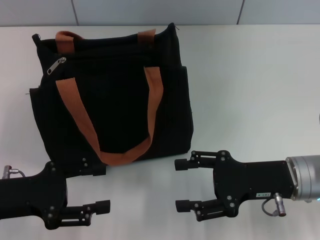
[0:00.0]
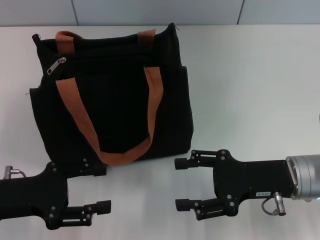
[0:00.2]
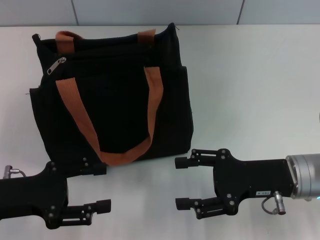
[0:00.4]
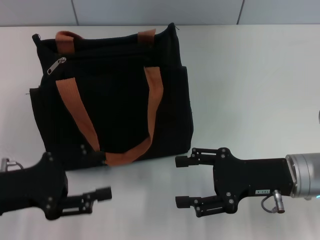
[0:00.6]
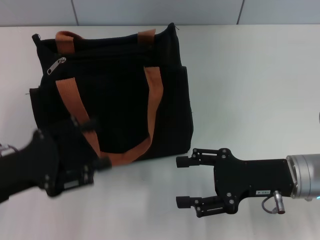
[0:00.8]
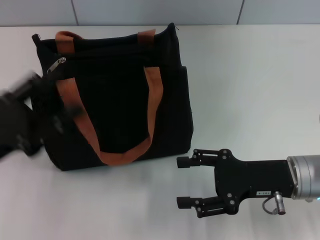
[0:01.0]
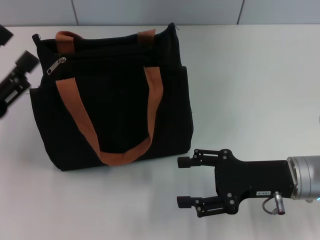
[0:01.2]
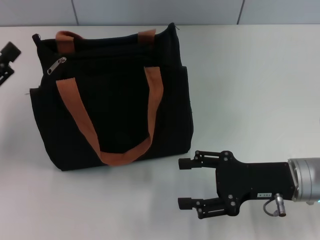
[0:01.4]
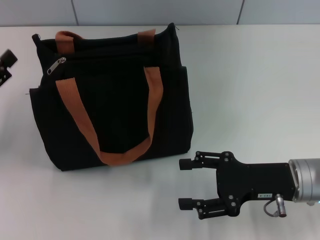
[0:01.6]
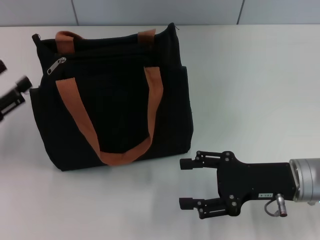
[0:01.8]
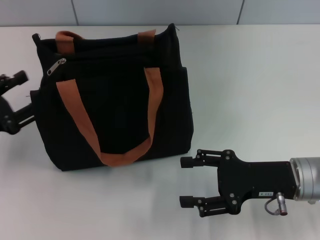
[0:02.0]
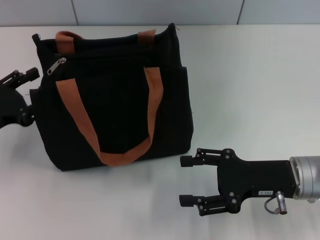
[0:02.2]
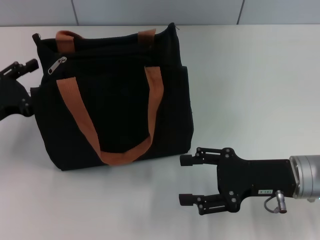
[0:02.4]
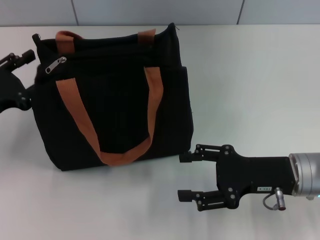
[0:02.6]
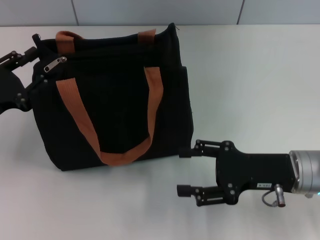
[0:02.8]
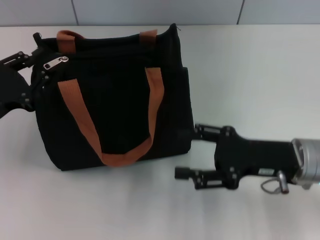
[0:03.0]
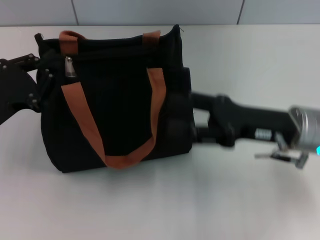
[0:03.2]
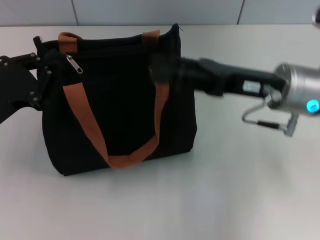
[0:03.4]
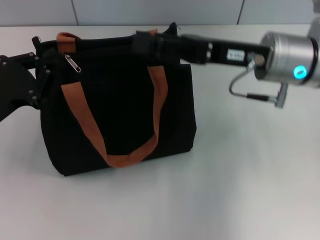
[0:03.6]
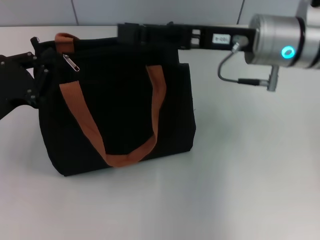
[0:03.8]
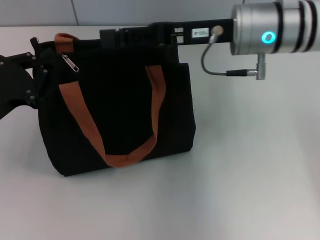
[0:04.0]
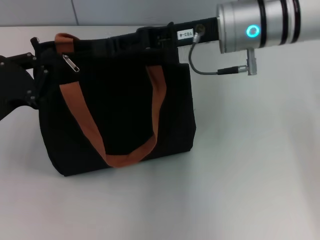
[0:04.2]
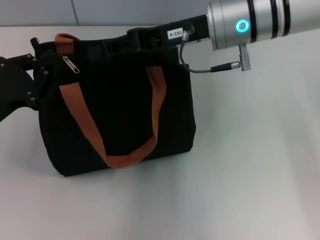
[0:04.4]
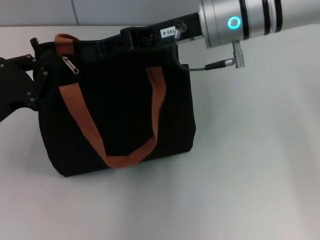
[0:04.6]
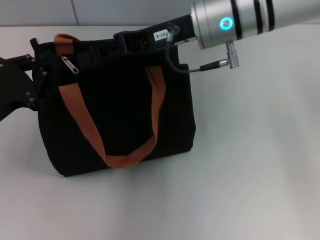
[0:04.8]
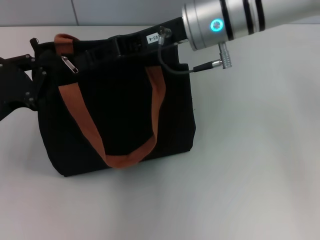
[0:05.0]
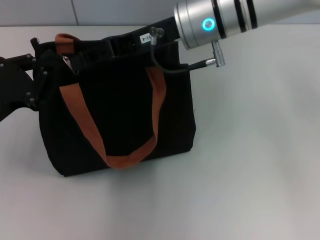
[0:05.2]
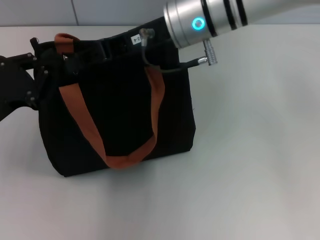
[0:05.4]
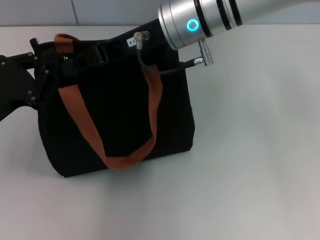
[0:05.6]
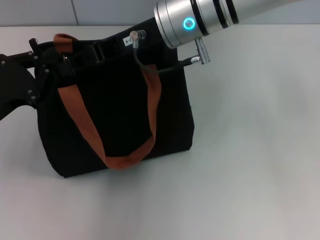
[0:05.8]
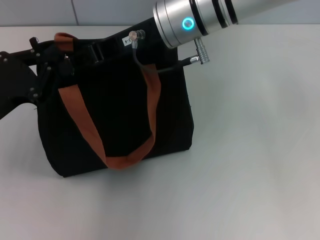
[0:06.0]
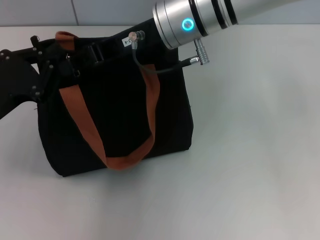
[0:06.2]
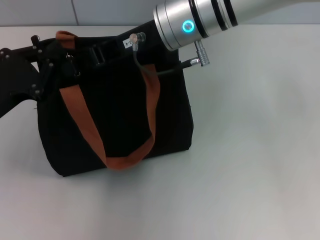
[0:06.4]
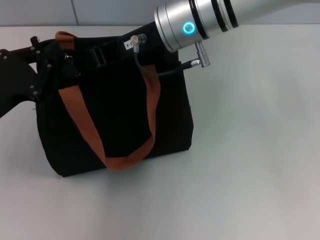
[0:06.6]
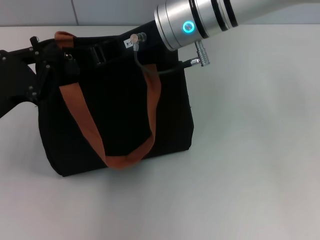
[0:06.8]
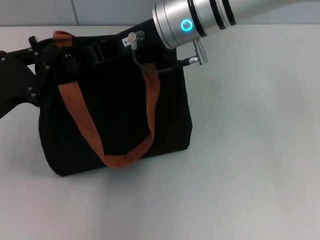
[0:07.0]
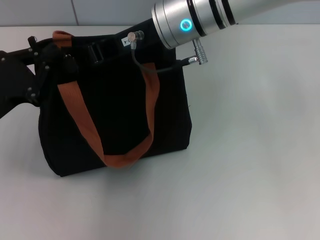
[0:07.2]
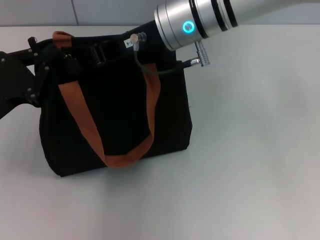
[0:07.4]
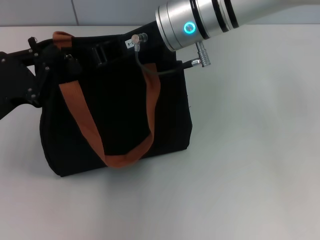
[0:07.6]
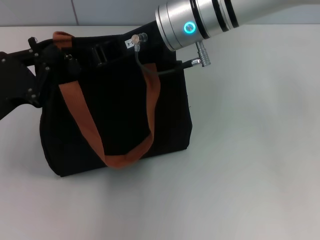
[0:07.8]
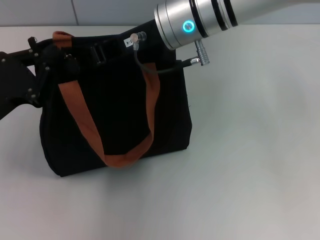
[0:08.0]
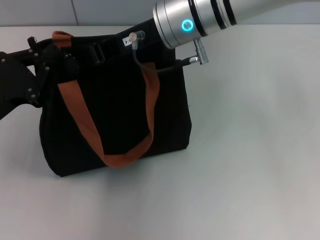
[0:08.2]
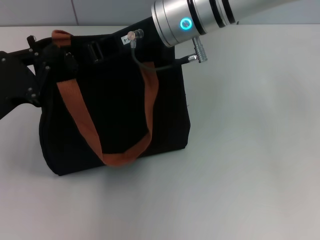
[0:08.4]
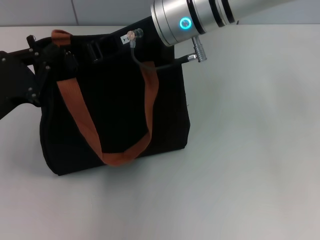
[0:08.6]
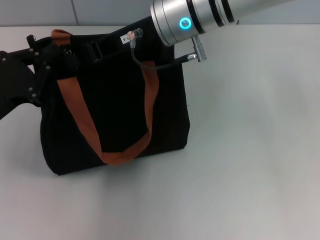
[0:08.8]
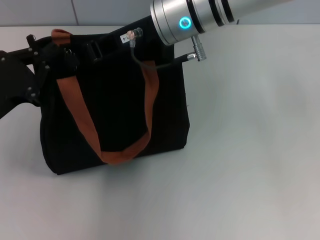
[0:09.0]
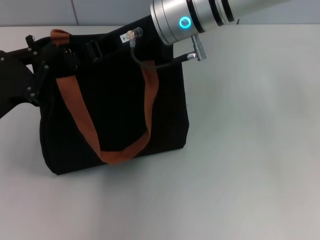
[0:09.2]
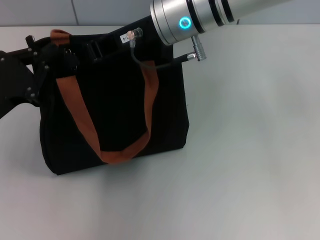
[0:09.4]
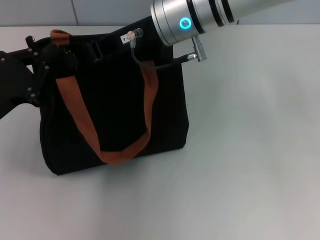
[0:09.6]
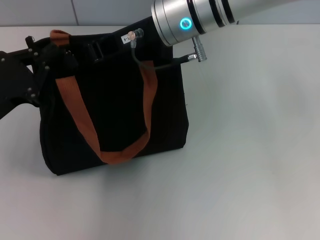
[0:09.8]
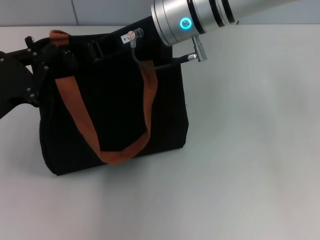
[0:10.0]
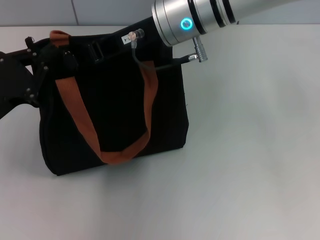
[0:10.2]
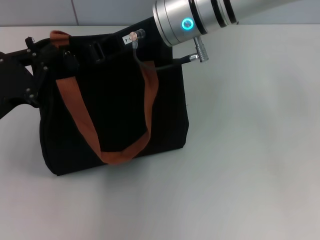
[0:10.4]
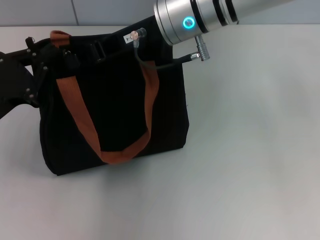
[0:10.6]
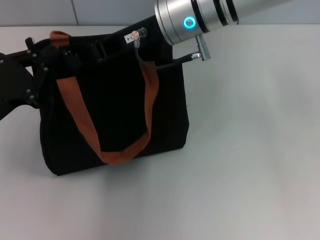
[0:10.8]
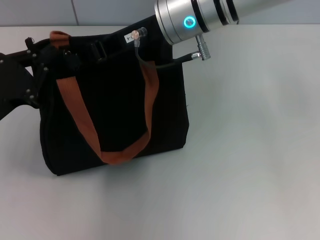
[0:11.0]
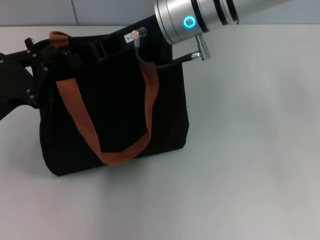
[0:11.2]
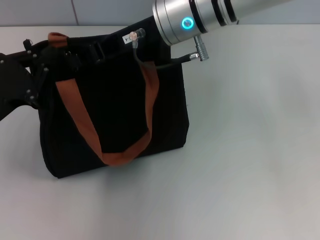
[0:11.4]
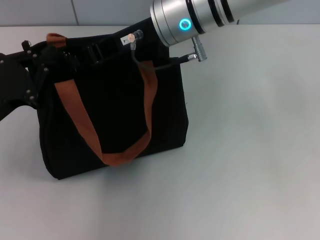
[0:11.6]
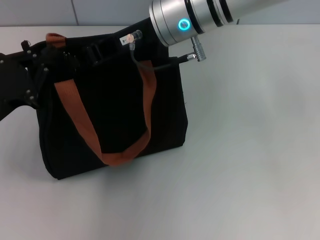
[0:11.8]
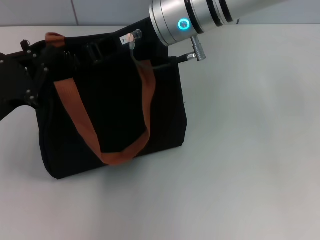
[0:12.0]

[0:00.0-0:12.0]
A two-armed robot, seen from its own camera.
0:00.0 to 0:01.6: The left gripper goes some 5 cm to the left.
0:01.6 to 0:03.0: The left gripper closes its fingers.
0:03.0 to 0:04.4: The left gripper closes its fingers; the right gripper heads forward, upward and to the left, covering about 20 cm.
0:04.4 to 0:06.0: The right gripper moves to the left, some 5 cm.
0:06.0 to 0:10.4: Neither gripper changes place.
0:10.4 to 0:12.0: The two grippers keep their place.

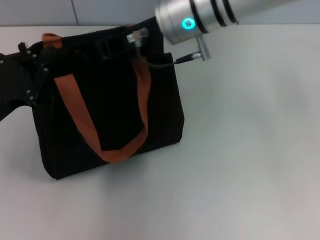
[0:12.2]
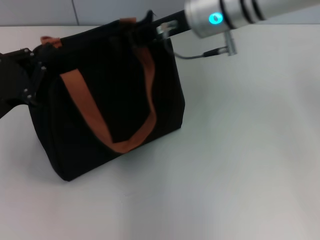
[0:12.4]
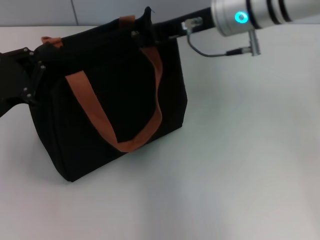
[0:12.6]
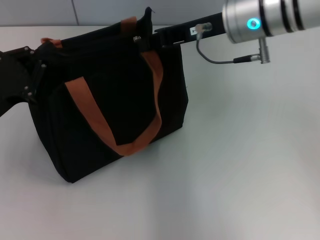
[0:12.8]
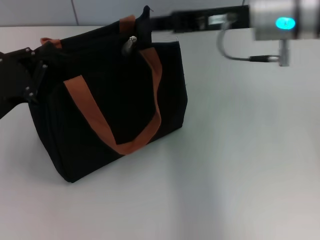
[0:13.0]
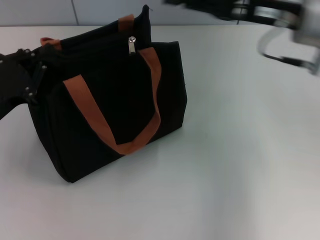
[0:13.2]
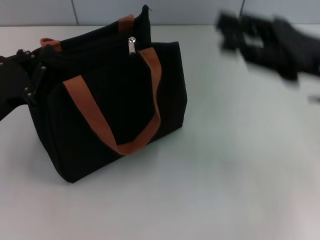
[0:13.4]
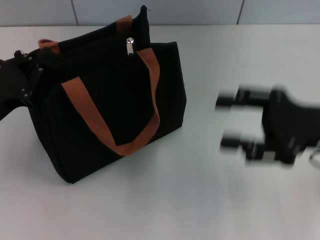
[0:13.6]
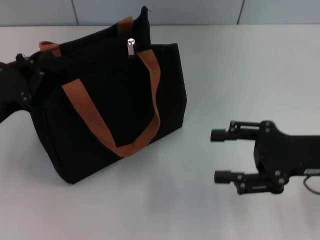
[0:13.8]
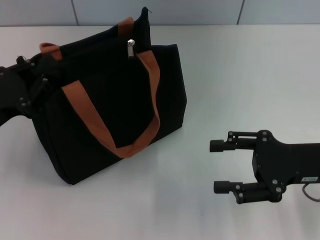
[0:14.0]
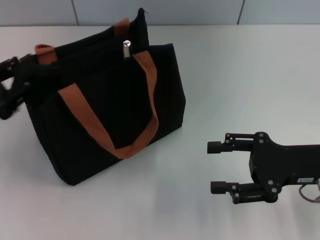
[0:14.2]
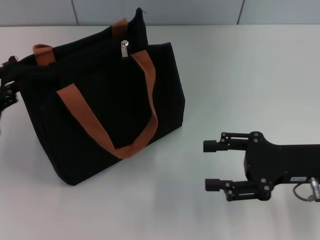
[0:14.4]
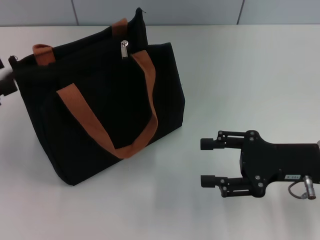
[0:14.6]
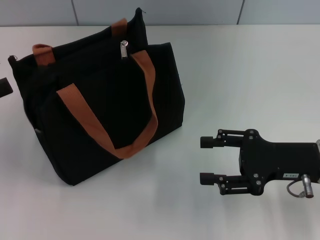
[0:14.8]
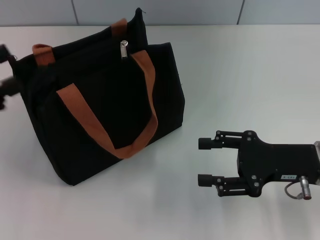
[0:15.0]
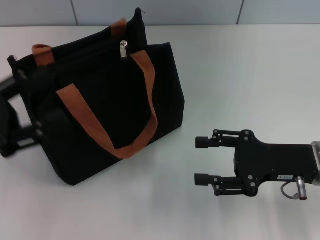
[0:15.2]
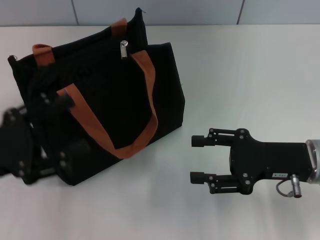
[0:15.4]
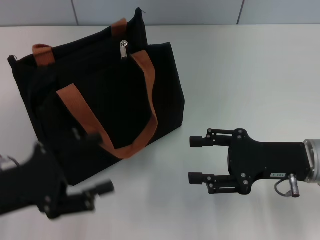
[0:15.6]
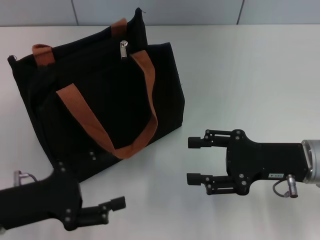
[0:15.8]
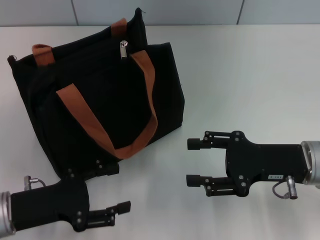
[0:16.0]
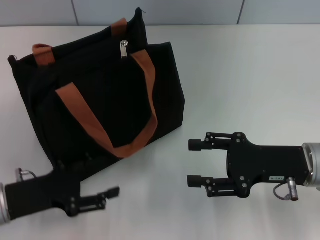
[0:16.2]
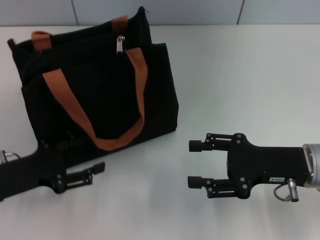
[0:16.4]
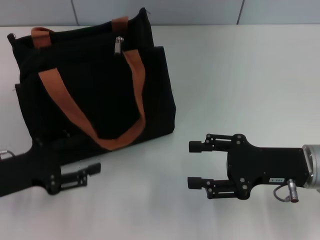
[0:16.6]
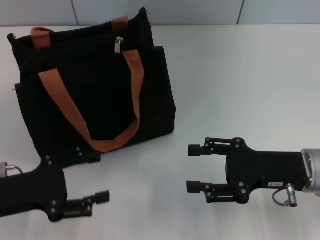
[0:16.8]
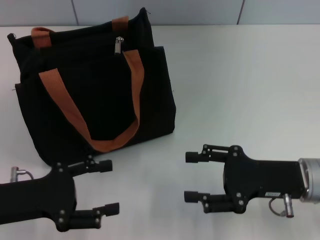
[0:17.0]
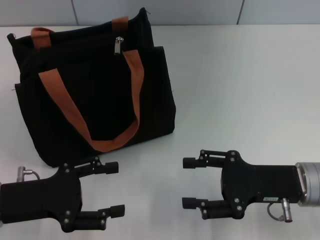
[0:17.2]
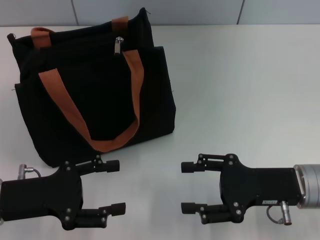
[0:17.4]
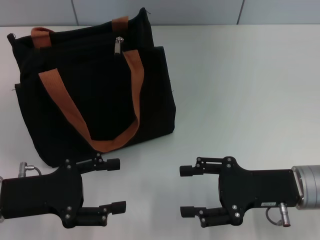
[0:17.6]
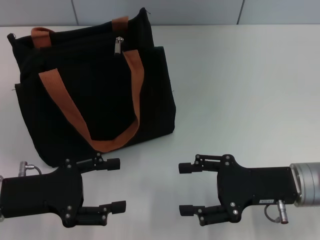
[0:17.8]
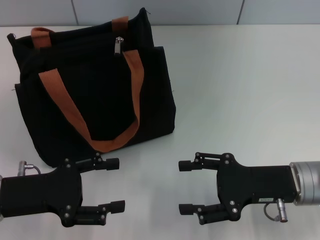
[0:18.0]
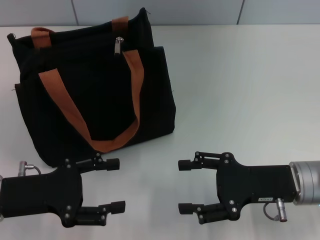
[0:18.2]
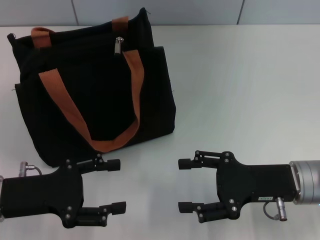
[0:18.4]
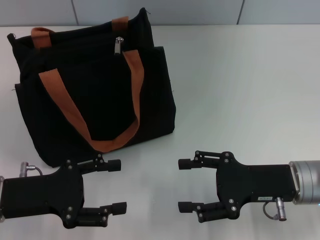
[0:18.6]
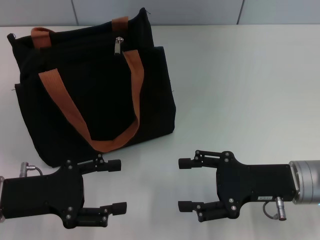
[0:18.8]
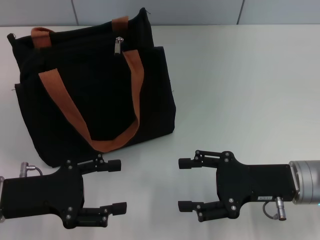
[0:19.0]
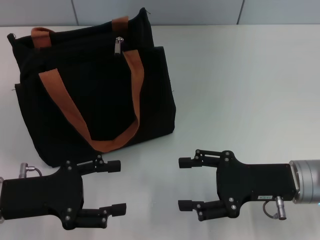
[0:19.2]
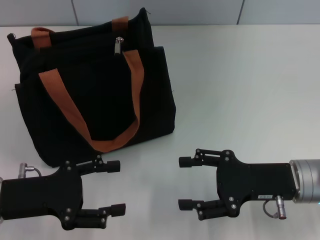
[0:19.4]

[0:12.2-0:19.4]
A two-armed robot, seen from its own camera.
Step, 0:13.2 to 0:14.6: Grab the zipper with your left hand.
0:12.2 to 0:13.6: The right gripper goes roughly 25 cm to the right and backward, and opens up.
0:13.6 to 0:15.0: The left gripper goes some 10 cm upward and to the left, and opens.
0:15.0 to 0:16.6: The left gripper is displaced downward and to the right by roughly 10 cm.
0:16.6 to 0:18.0: The grippers make only small movements.
0:18.0 to 0:19.4: The two grippers keep their place.

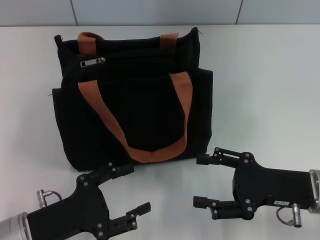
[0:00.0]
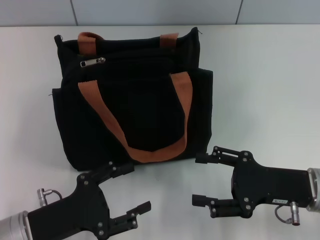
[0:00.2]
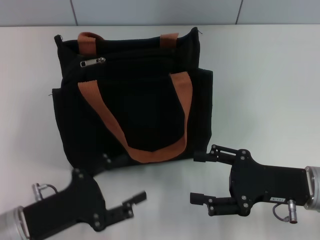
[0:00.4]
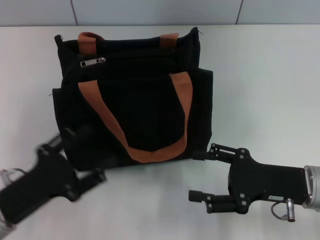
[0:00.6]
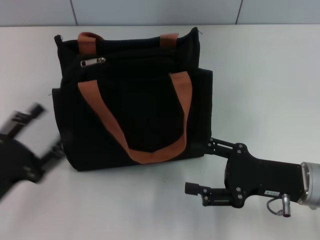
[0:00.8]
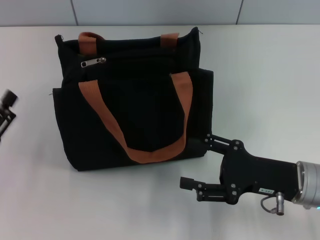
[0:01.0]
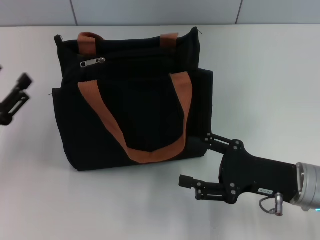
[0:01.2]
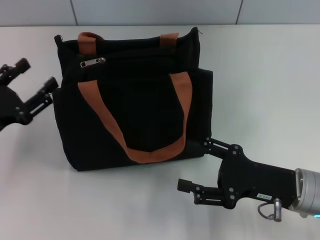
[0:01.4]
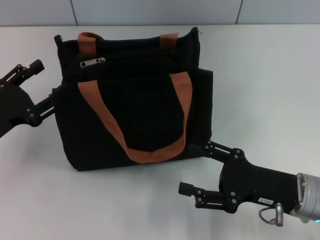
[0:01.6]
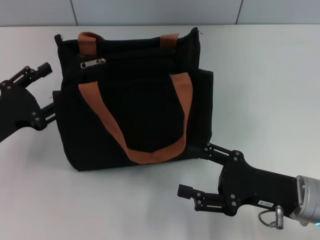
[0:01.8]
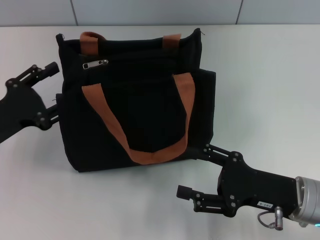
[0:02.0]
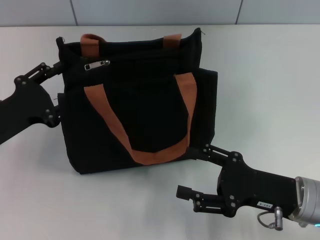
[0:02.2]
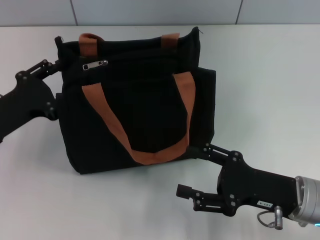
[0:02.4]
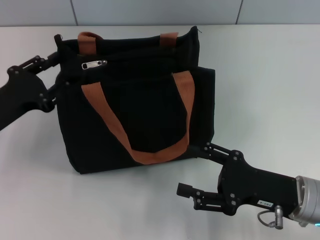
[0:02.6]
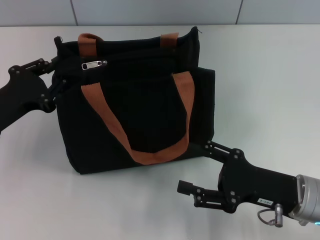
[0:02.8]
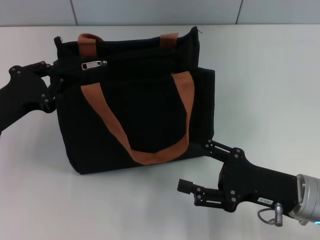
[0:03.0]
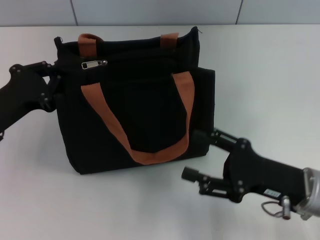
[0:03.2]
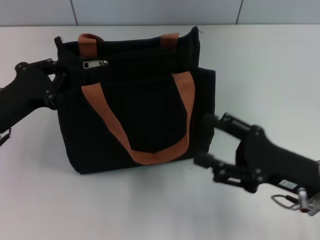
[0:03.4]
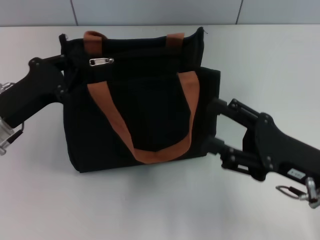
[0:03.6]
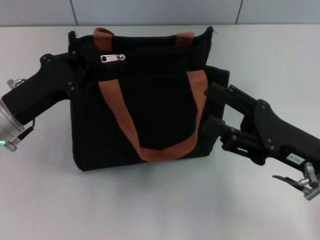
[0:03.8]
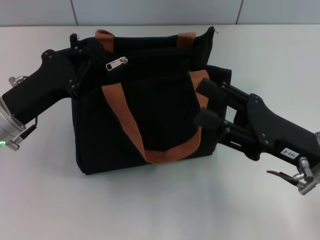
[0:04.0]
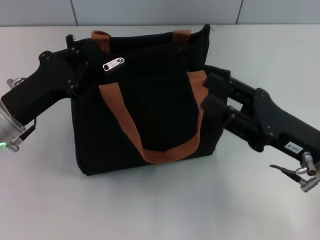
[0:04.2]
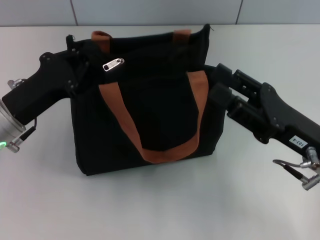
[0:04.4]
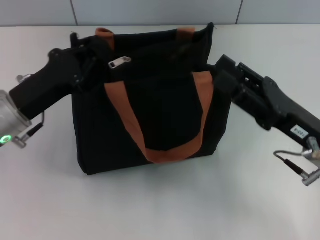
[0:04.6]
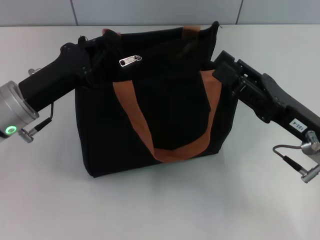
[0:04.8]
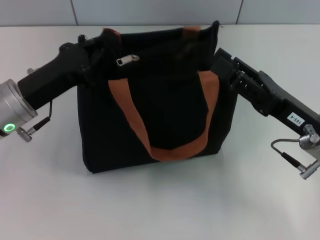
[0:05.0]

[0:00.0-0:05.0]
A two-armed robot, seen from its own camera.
0:00.0 to 0:01.6: The left gripper shifts about 10 cm forward and to the left.
0:01.6 to 0:03.4: The left gripper closes its fingers.
0:03.4 to 0:05.0: The left gripper shifts by about 5 cm.
